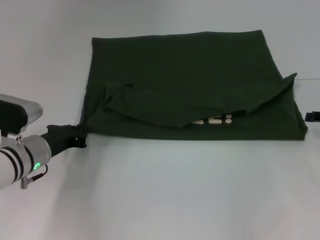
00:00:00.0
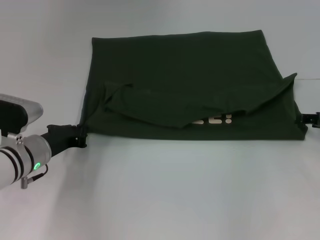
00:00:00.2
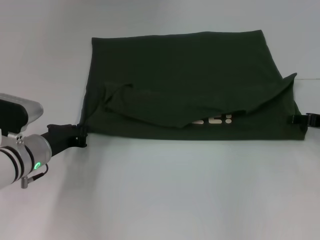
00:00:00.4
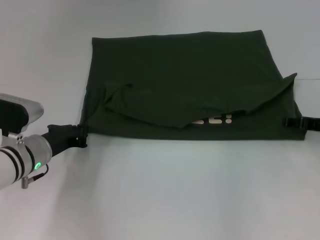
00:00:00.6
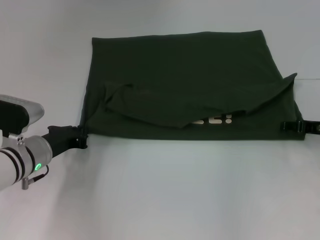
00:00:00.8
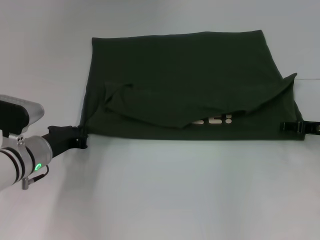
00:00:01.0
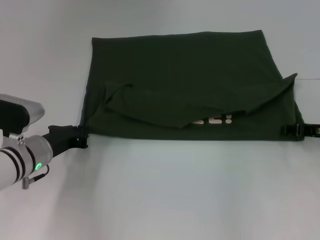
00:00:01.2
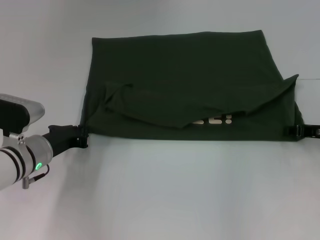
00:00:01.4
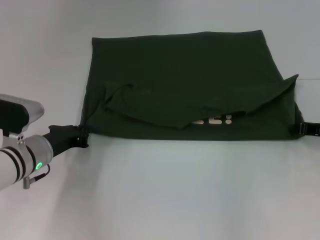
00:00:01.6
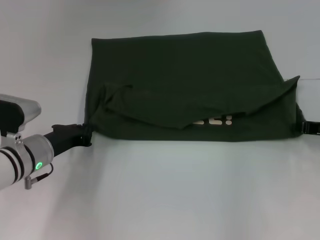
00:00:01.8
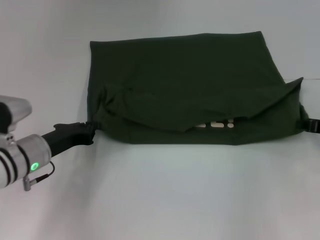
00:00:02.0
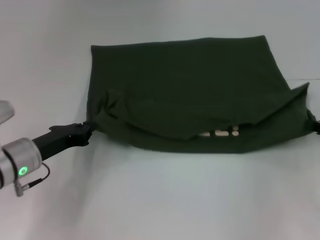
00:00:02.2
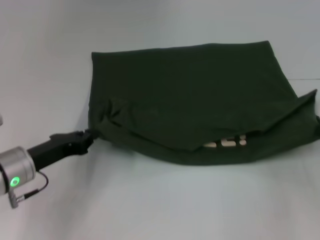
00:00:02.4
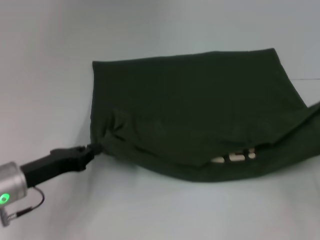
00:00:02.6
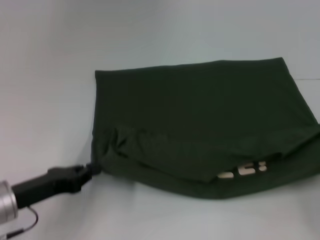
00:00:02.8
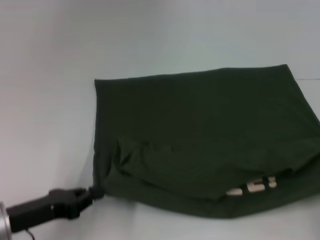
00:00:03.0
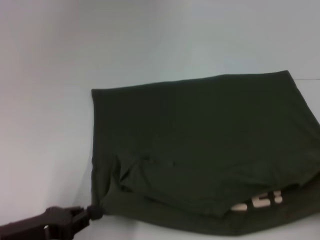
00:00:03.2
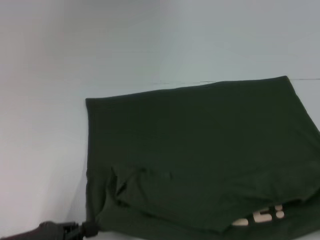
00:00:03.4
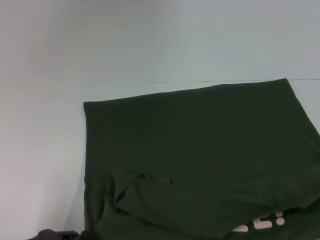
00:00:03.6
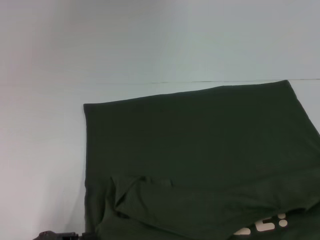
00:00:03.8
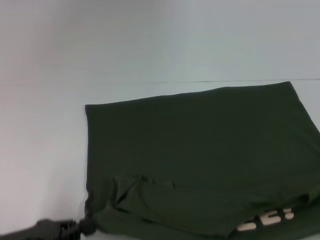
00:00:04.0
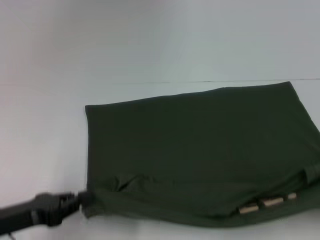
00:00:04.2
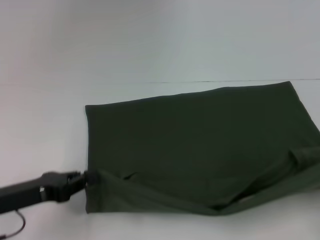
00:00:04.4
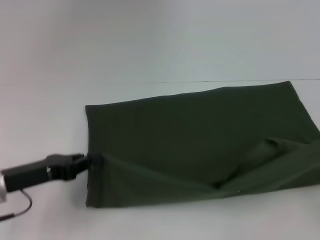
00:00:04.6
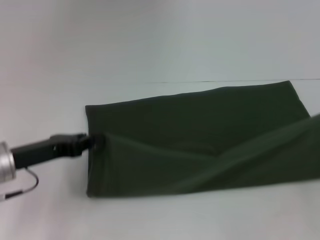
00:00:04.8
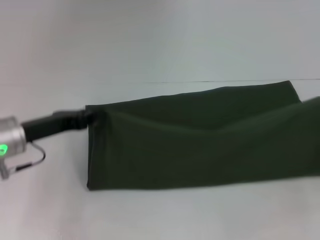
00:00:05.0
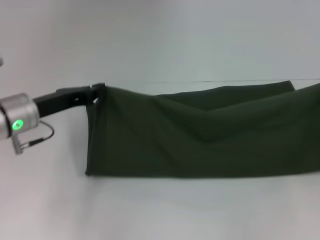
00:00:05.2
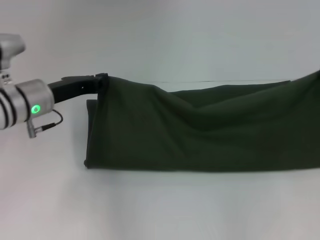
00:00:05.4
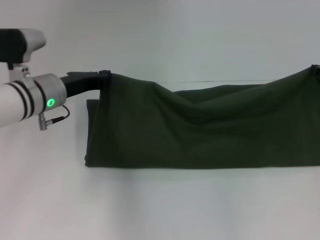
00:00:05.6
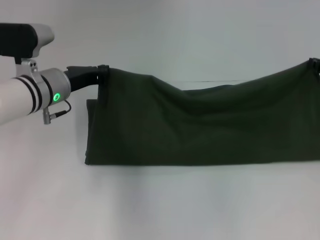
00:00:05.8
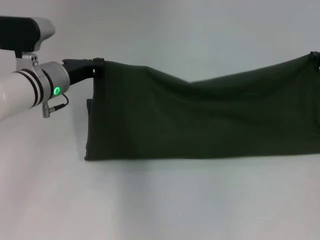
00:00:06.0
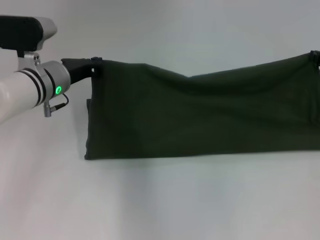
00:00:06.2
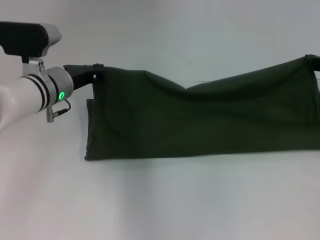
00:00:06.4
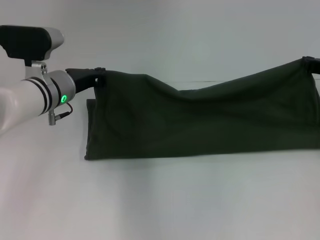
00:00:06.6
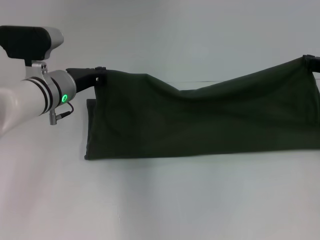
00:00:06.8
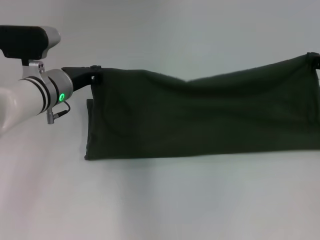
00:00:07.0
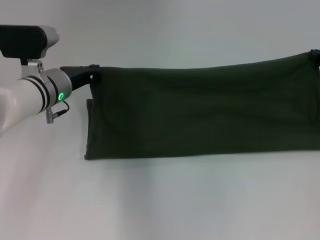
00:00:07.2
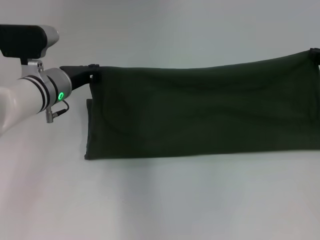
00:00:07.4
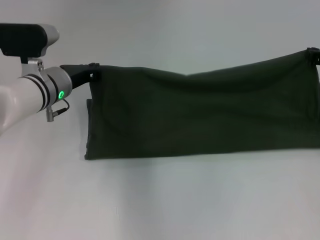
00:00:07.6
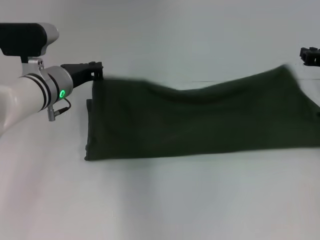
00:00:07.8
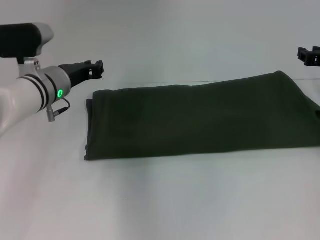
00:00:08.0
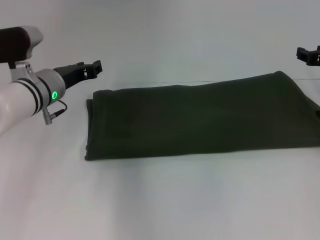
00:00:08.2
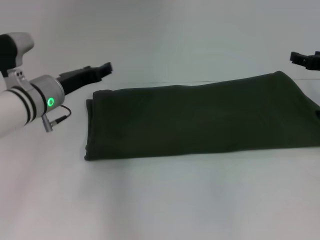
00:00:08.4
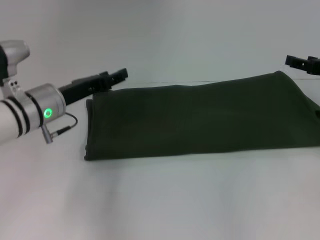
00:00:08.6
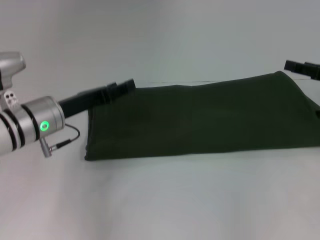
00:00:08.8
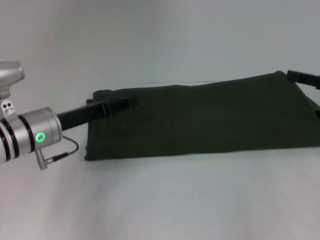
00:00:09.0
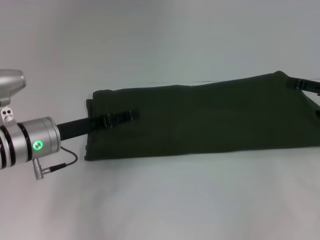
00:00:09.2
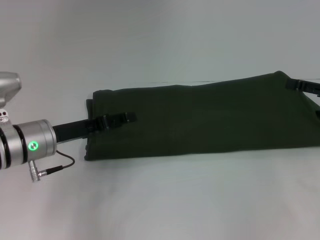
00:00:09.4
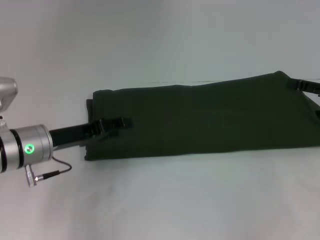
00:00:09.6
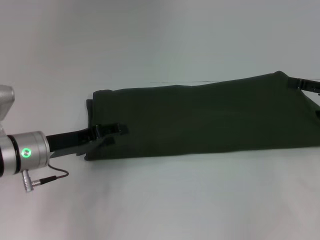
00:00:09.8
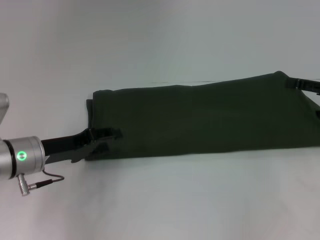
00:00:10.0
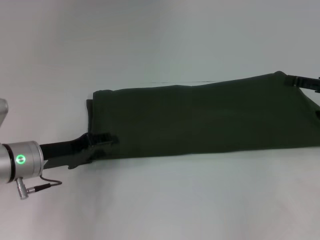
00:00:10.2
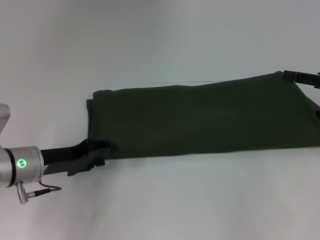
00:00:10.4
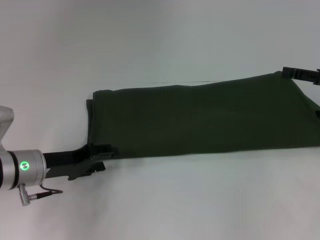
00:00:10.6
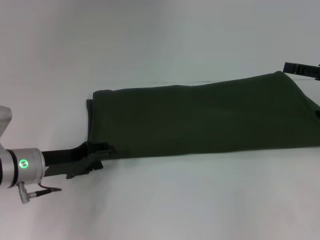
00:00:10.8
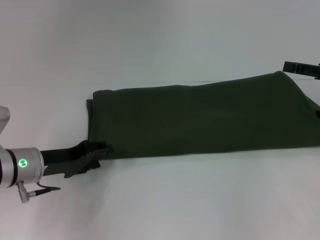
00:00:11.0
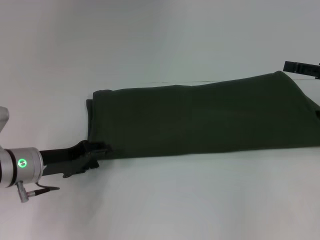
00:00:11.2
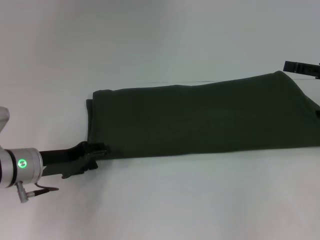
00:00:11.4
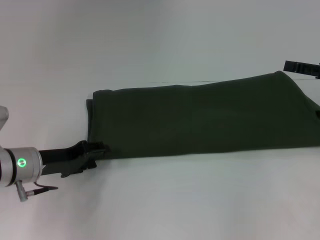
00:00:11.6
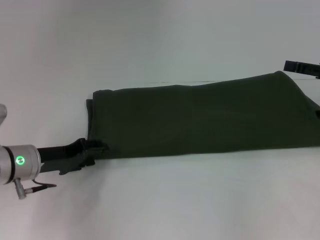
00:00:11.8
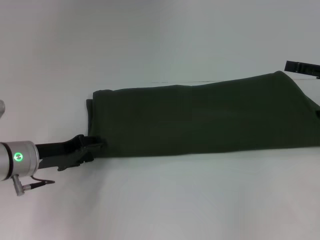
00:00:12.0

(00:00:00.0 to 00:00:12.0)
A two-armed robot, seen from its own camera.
Step, 00:00:00.0 - 00:00:03.2: Pull the clothes with your left hand.
Step, 00:00:00.0 - 00:00:03.2: Pull the clothes with your right hand.
Step, 00:00:03.4 - 00:00:08.0: Fold the clothes with your right hand.
00:00:00.0 - 00:00:01.6: The right gripper shifts by roughly 5 cm.
00:00:01.6 - 00:00:03.0: The right gripper travels backward and to the right by roughly 20 cm; the left gripper shifts some 10 cm backward.
00:00:03.0 - 00:00:04.4: The right gripper travels backward and back again, approximately 5 cm each way.
00:00:04.4 - 00:00:06.0: The right gripper heads forward, covering approximately 25 cm; the left gripper moves forward and to the right, about 20 cm.
00:00:06.0 - 00:00:07.6: There are only small adjustments of the grippers.
00:00:07.6 - 00:00:09.0: Both grippers travel together backward, some 5 cm. The right gripper opens. Meanwhile the left gripper opens up.
00:00:09.0 - 00:00:10.4: The left gripper moves some 5 cm.
00:00:10.4 - 00:00:12.0: The grippers stay close to where they were, moving slightly.

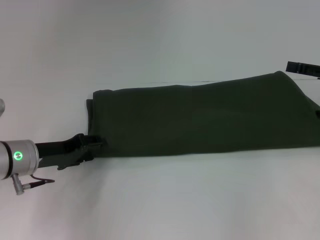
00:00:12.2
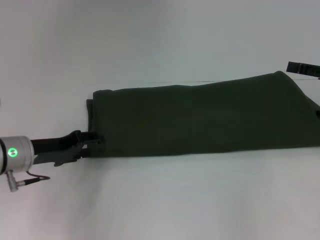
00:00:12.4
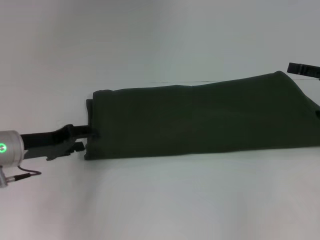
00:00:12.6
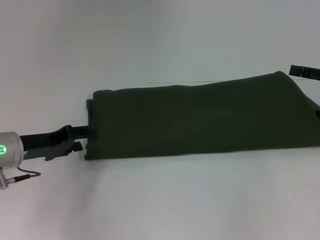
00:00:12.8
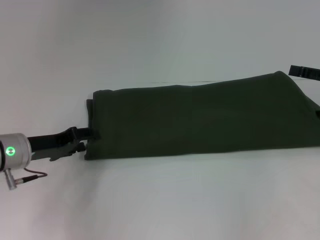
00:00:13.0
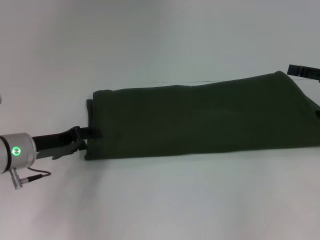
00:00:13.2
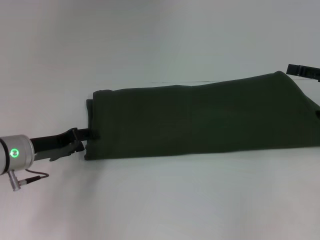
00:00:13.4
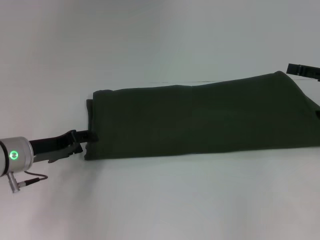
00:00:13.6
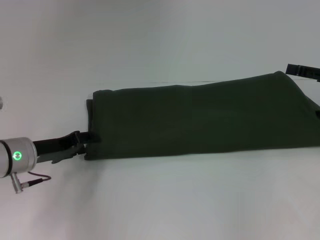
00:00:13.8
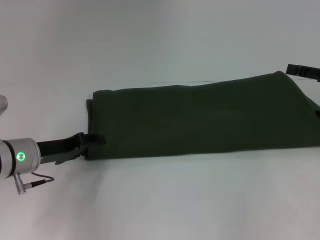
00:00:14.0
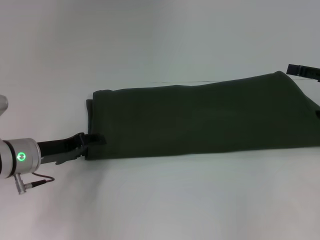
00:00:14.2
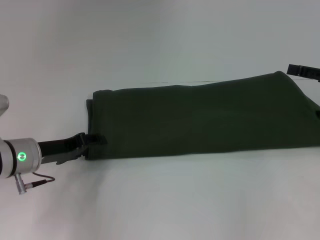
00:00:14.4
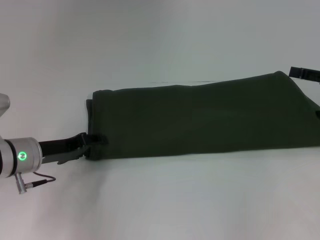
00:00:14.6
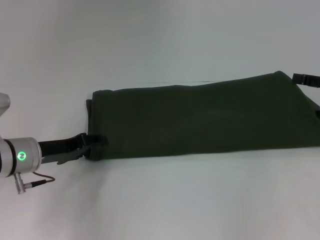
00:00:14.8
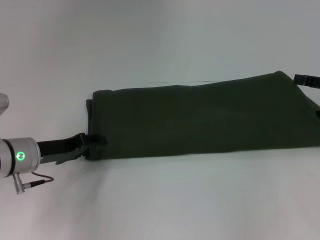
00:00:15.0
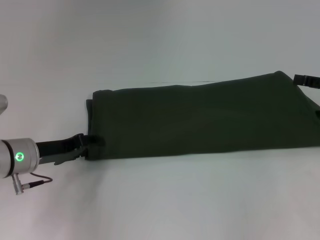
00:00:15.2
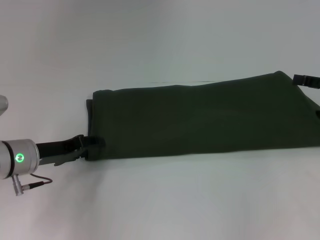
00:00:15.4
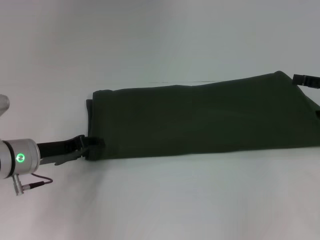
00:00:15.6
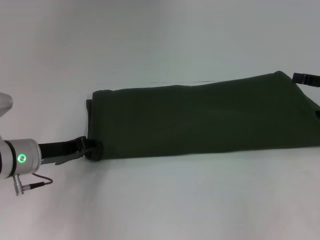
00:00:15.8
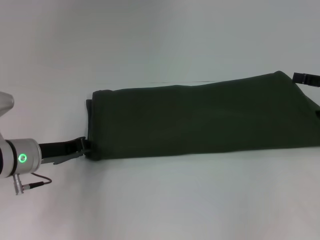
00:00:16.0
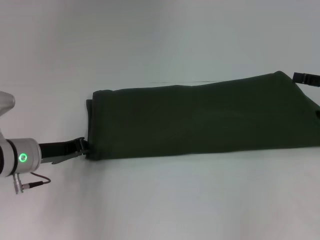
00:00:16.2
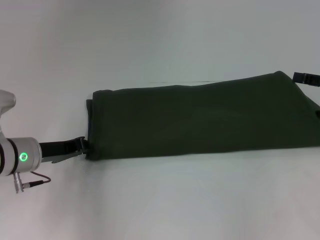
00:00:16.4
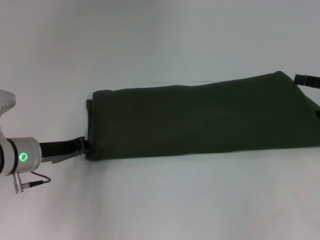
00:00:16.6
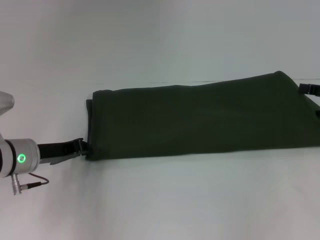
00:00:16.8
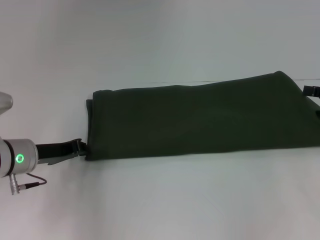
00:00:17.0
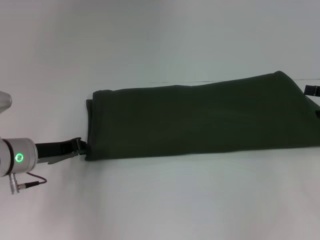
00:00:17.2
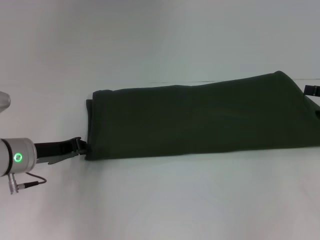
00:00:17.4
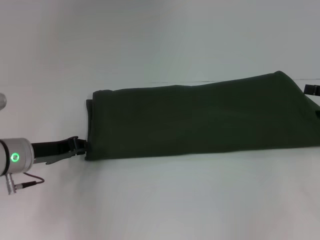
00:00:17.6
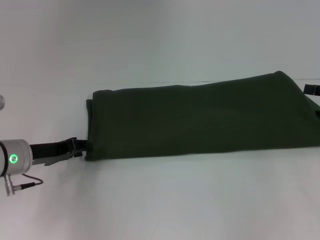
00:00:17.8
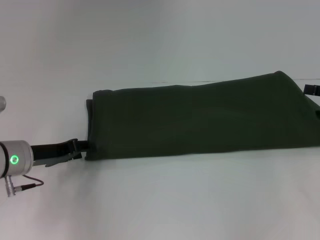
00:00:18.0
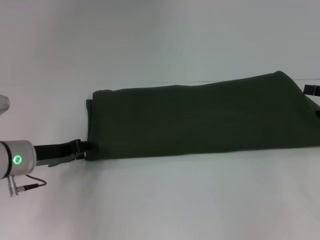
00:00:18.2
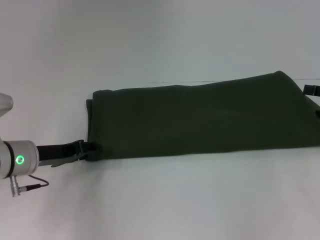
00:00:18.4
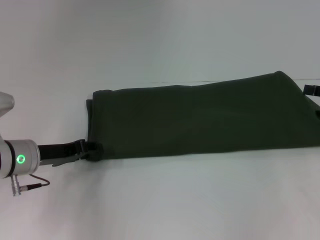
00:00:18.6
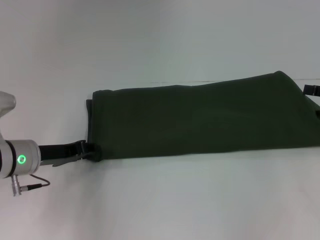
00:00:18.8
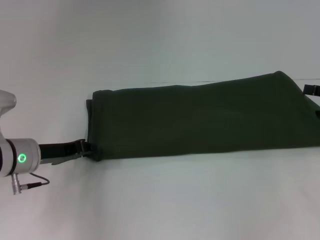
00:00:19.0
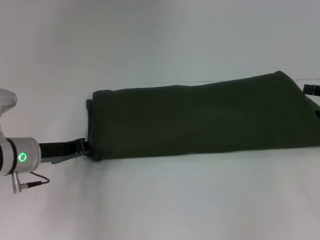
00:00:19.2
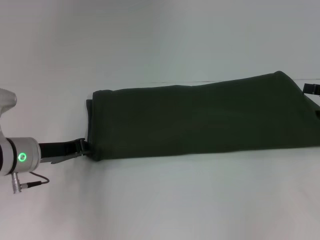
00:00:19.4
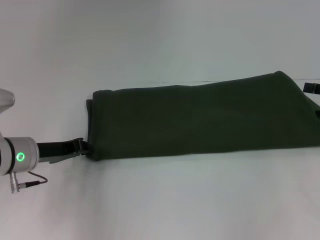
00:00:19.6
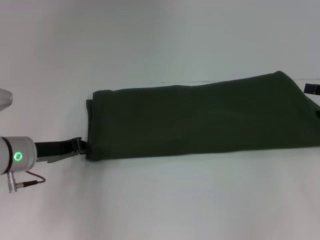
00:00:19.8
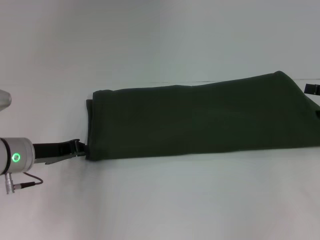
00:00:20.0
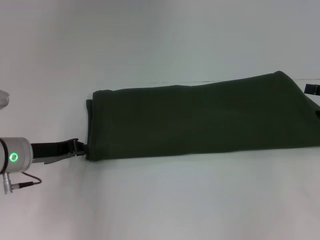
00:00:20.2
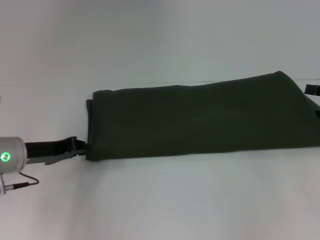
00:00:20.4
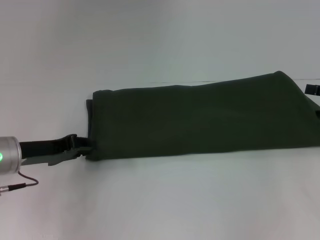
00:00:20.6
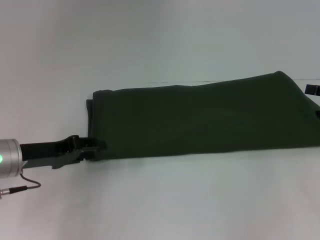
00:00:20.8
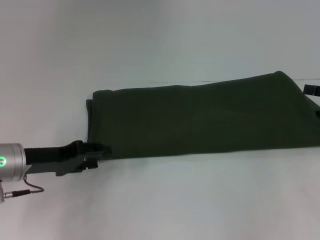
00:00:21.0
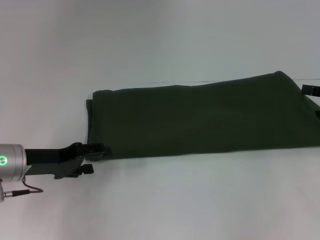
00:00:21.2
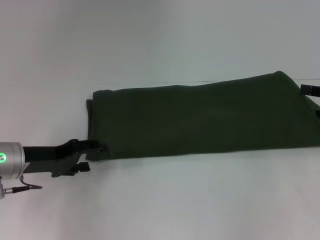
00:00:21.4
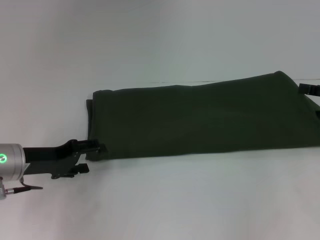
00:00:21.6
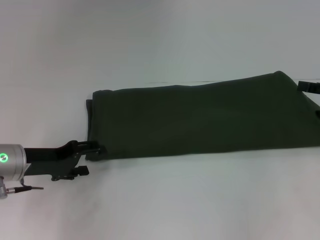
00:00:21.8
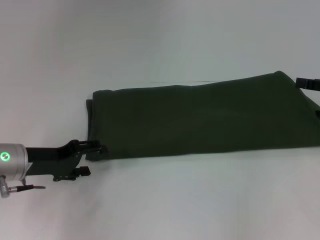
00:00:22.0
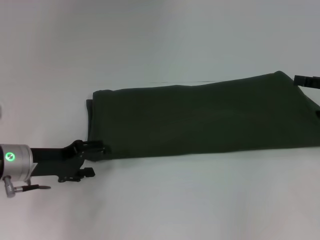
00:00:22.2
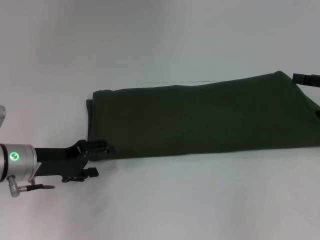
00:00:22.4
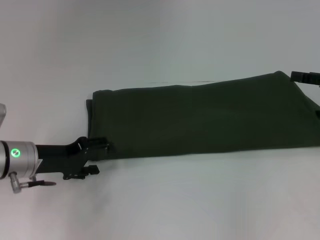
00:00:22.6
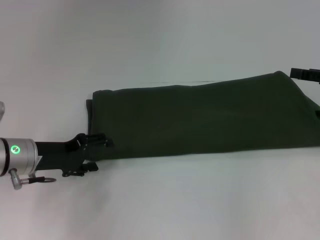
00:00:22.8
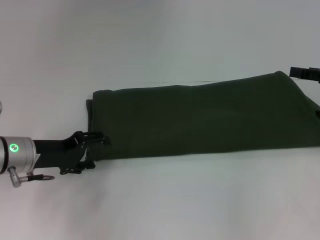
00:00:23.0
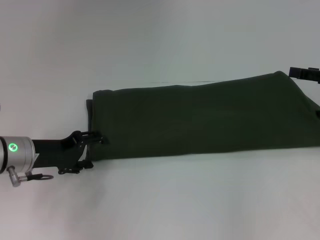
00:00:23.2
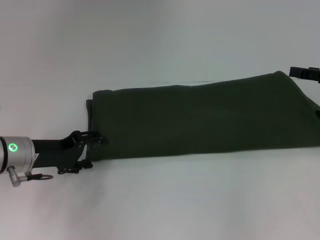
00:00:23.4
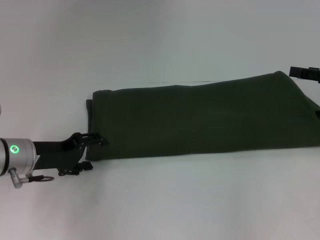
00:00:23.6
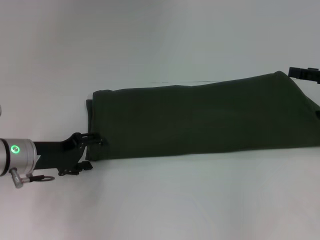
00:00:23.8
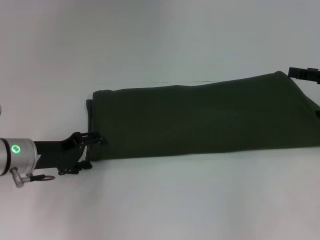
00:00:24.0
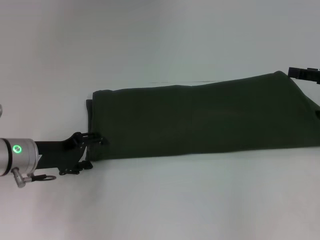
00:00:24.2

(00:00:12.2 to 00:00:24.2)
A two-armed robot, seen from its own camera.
00:00:12.2 - 00:00:13.8: The grippers move only a little.
00:00:13.8 - 00:00:15.2: Both grippers stay about where they are.
00:00:15.2 - 00:00:16.6: The left gripper closes its fingers.
00:00:16.6 - 00:00:18.2: The left gripper opens its fingers.
00:00:18.2 - 00:00:19.8: The left gripper closes.
00:00:19.8 - 00:00:21.2: The left gripper opens its fingers.
00:00:21.2 - 00:00:24.2: The grippers make only small movements.
